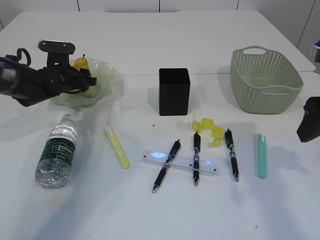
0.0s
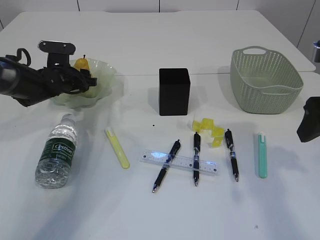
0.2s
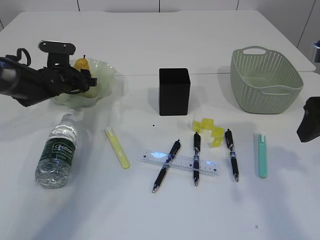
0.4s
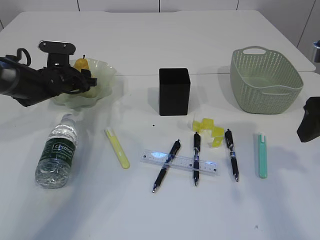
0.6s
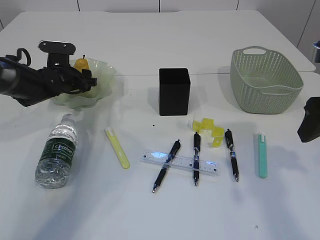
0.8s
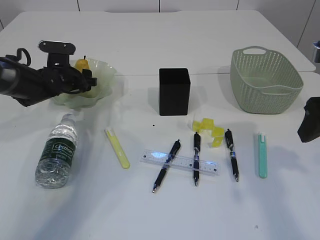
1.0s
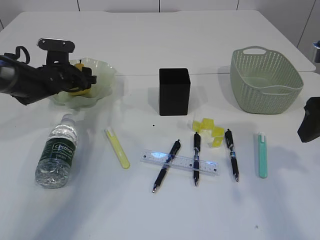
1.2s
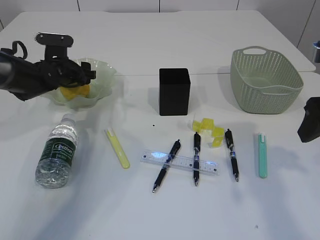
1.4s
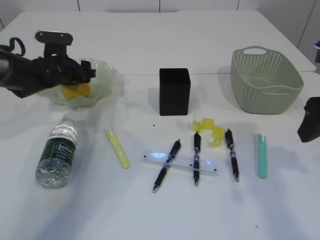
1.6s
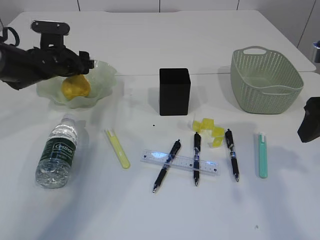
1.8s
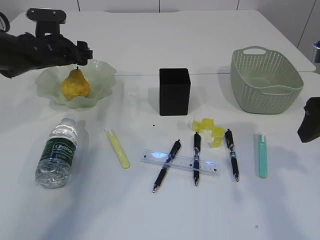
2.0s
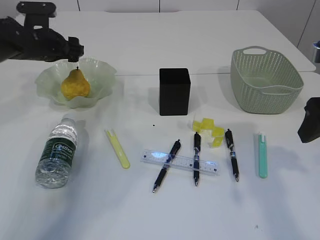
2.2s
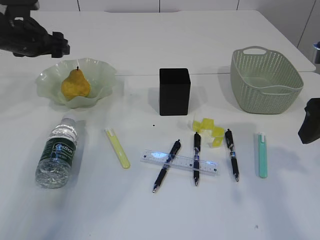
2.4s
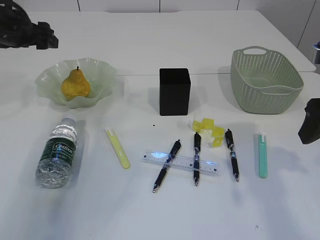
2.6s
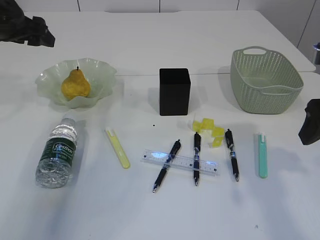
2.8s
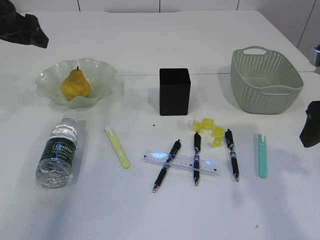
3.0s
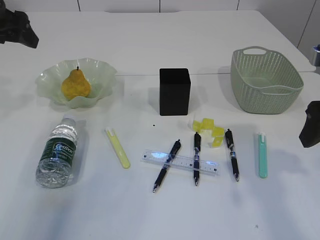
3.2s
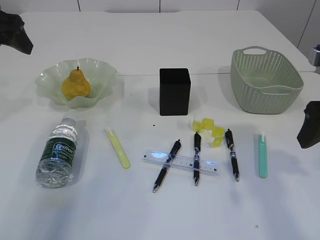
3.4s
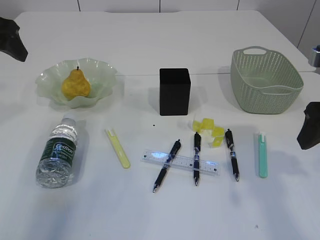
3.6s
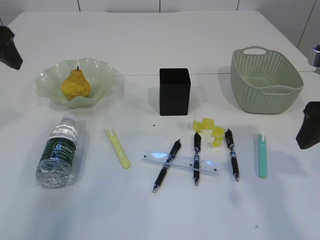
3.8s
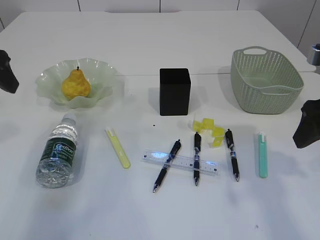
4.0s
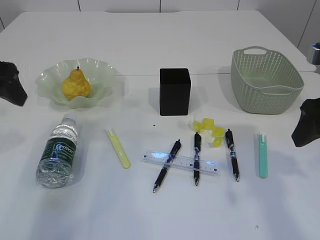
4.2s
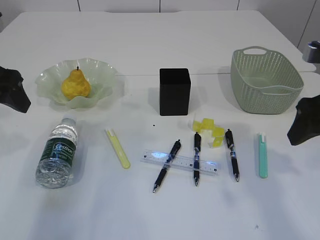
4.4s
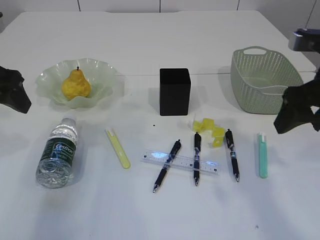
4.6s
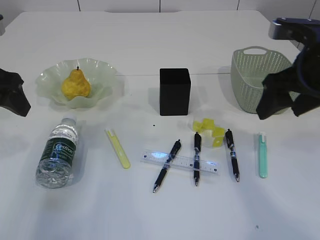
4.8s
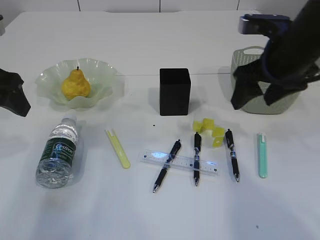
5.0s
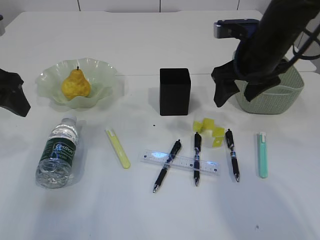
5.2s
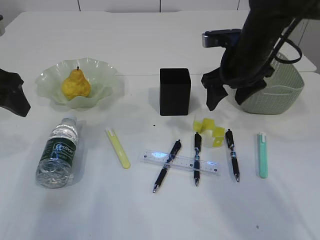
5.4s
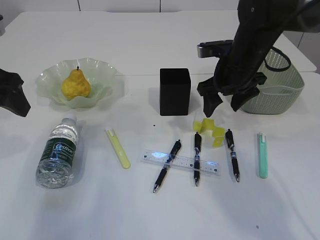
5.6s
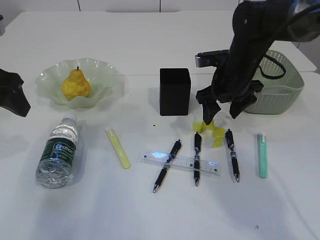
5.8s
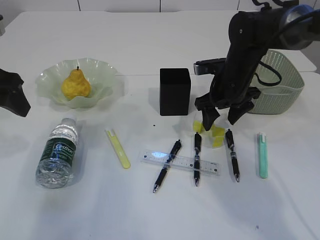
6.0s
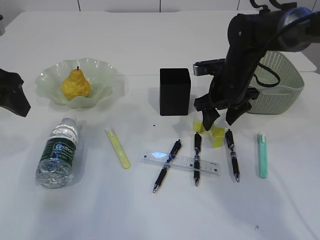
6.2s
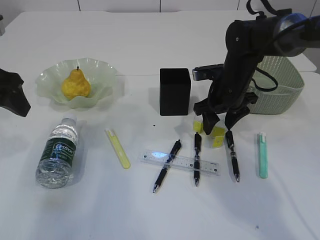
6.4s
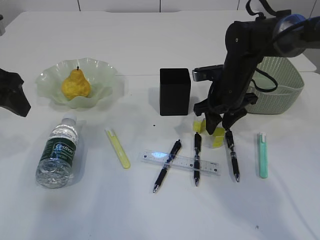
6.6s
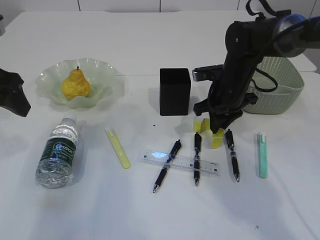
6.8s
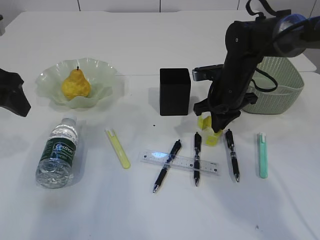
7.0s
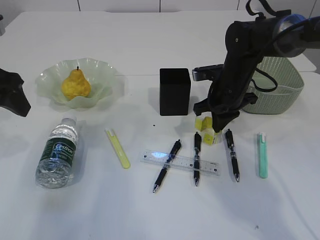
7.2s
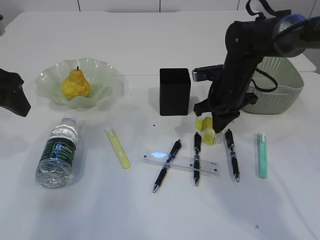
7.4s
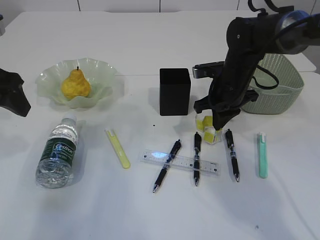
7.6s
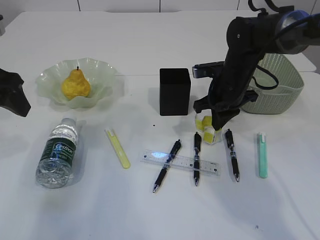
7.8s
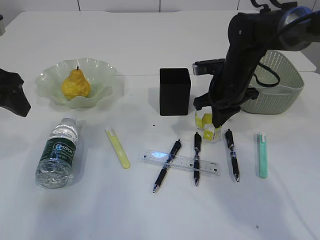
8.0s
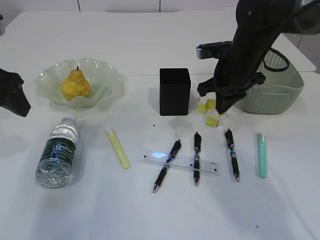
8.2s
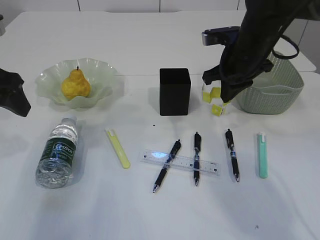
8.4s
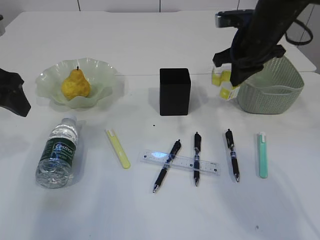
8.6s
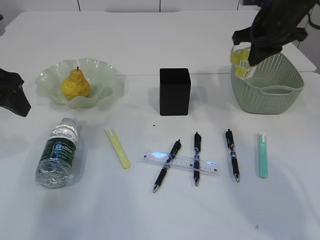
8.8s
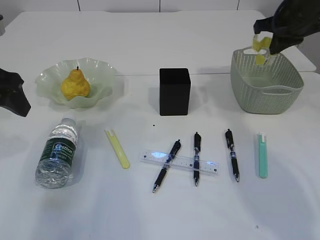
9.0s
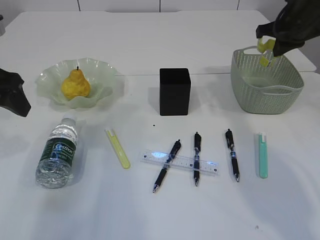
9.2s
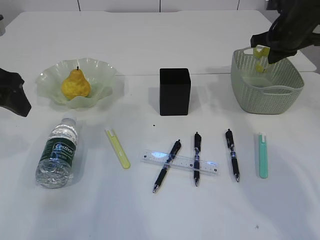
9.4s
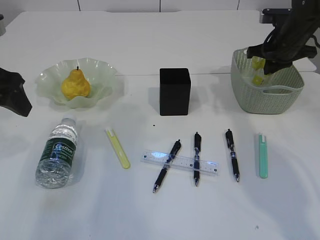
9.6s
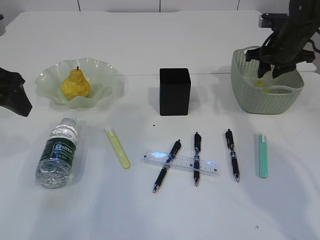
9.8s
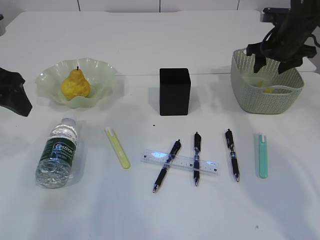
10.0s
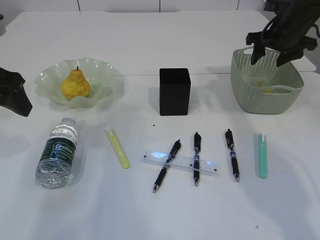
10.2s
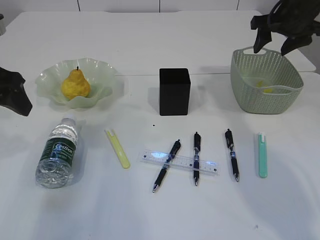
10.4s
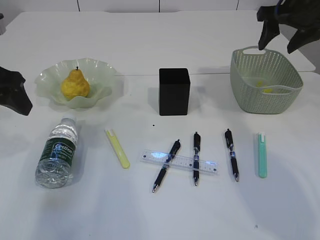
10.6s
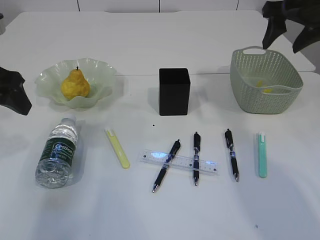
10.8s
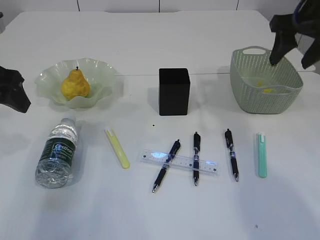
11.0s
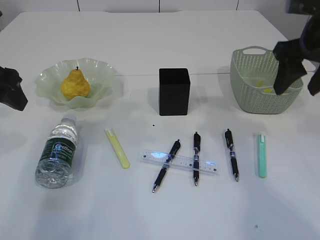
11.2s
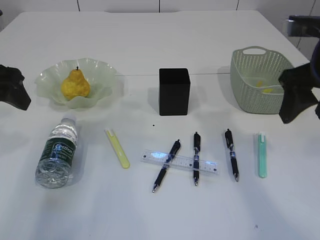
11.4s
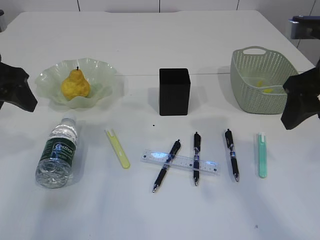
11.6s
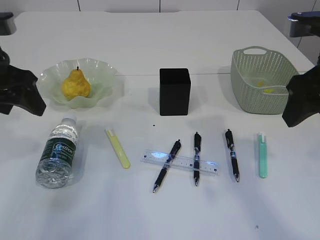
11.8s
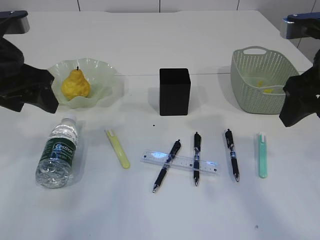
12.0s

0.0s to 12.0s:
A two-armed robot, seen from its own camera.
Step, 2.0s to 8.2s: Pick up the waste paper.
Step, 8.4s to 10.2s: Place the waste paper in the basket.
0.0s to 1.6s: The grippers make only small movements.
1.6s to 3.0s: The left gripper moves upward and backward, approximately 20 cm.
3.0s to 4.4s: The left gripper heads backward, covering roughly 10 cm.
4.4s to 6.0s: The right gripper travels forward, downward and to the left by some 20 cm.
6.0s to 7.6s: The right gripper closes.
7.6s to 9.0s: The right gripper moves upward and to the right, approximately 20 cm.
9.0s to 10.4s: The right gripper goes downward and returns, some 10 cm each way, and opens up.
10.4s to 12.0s: The right gripper goes about 20 cm backward.

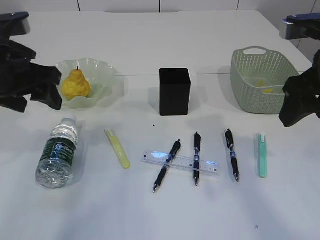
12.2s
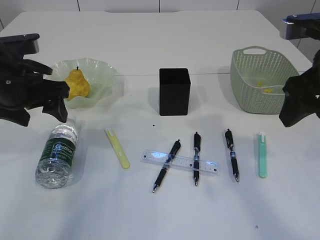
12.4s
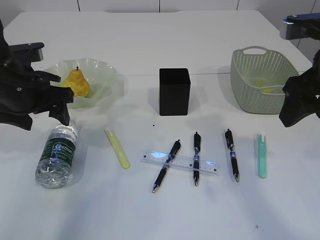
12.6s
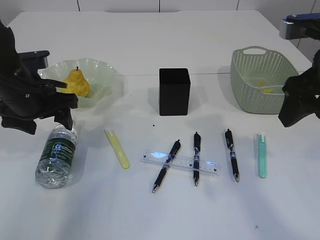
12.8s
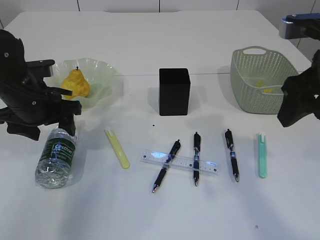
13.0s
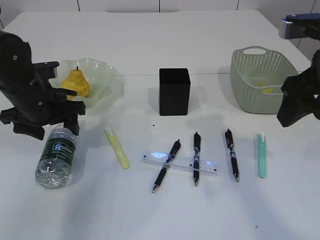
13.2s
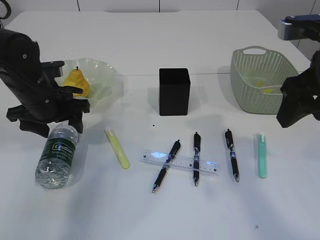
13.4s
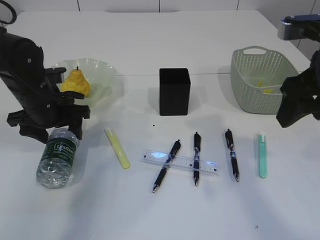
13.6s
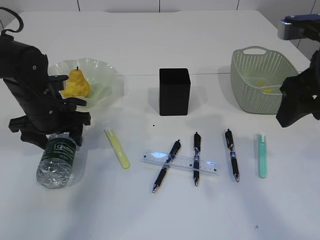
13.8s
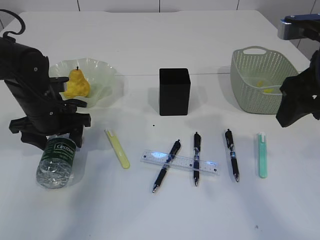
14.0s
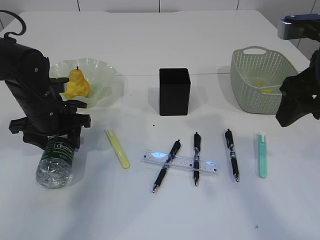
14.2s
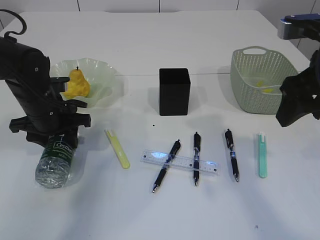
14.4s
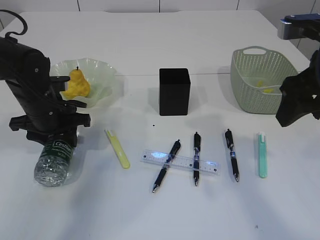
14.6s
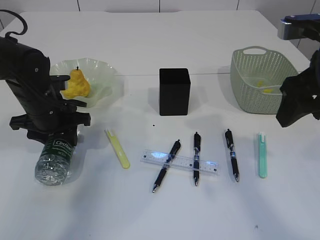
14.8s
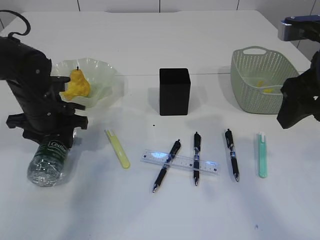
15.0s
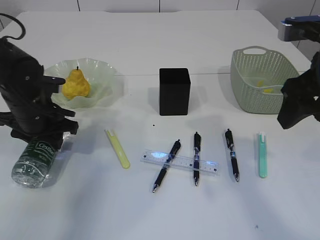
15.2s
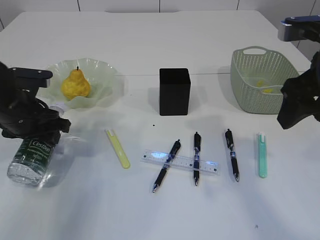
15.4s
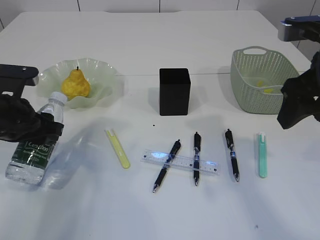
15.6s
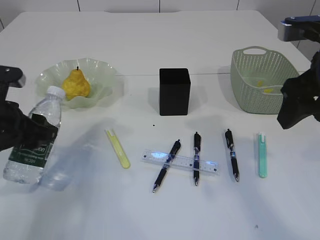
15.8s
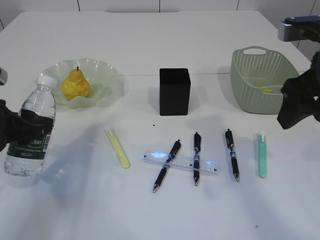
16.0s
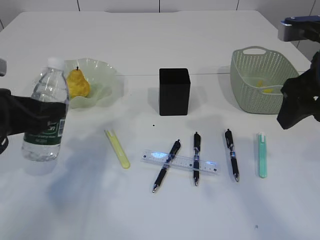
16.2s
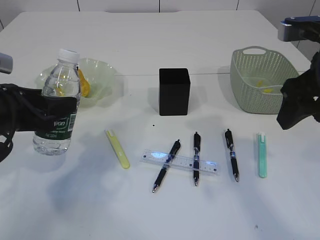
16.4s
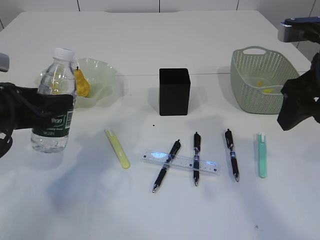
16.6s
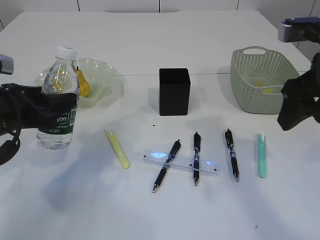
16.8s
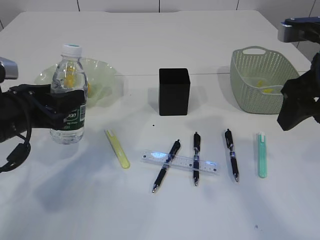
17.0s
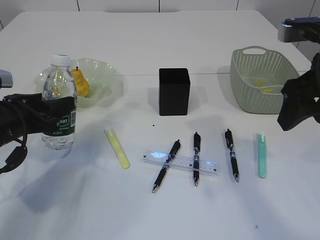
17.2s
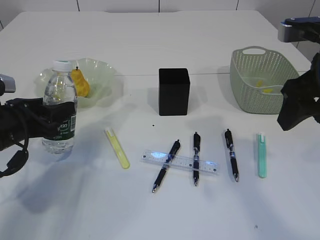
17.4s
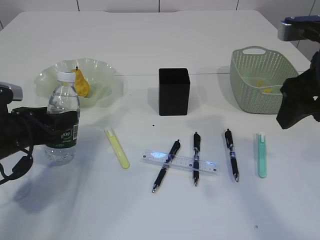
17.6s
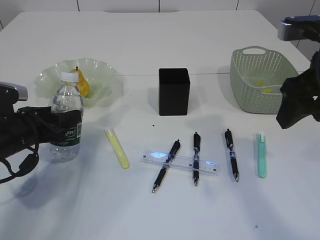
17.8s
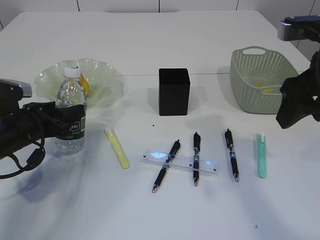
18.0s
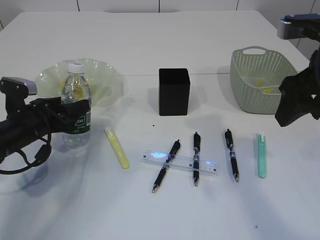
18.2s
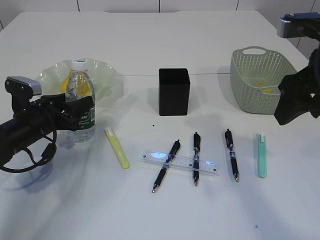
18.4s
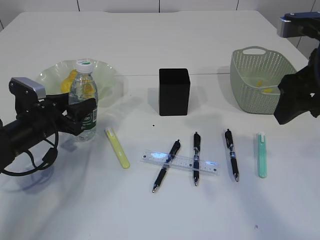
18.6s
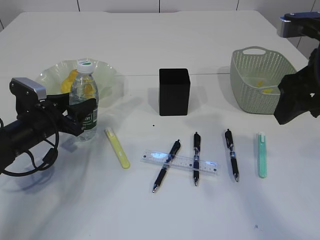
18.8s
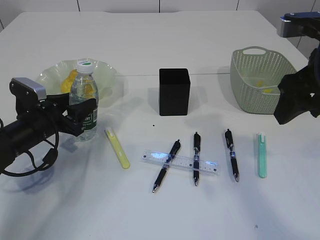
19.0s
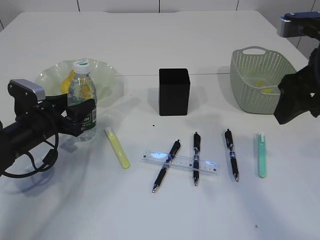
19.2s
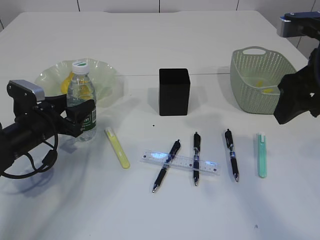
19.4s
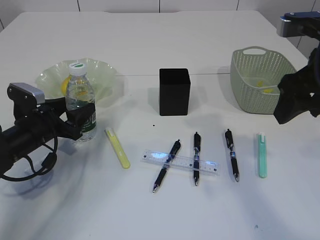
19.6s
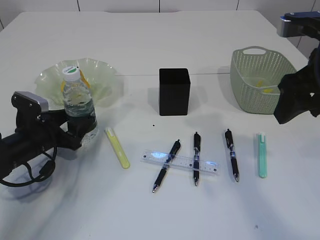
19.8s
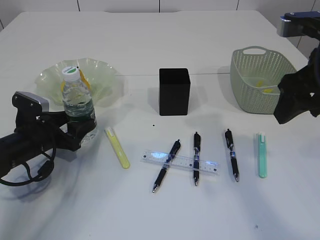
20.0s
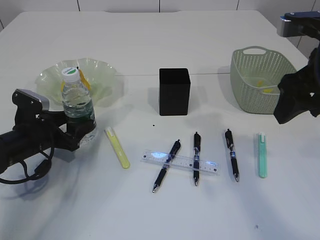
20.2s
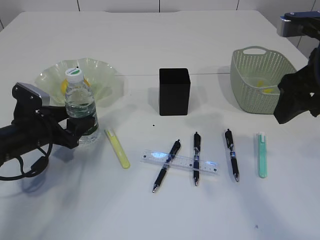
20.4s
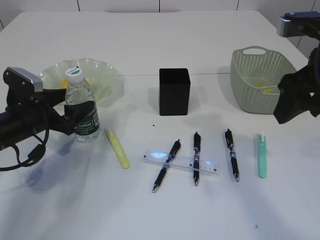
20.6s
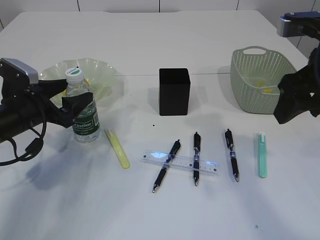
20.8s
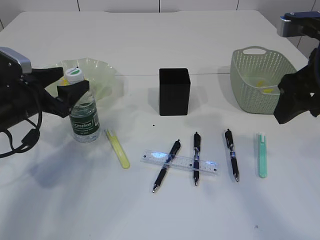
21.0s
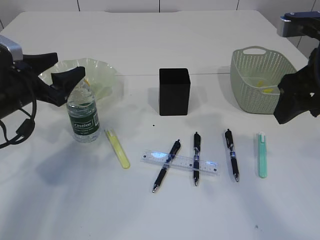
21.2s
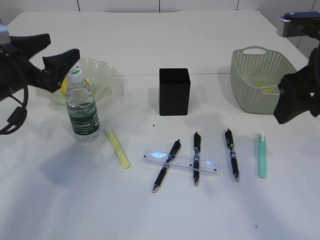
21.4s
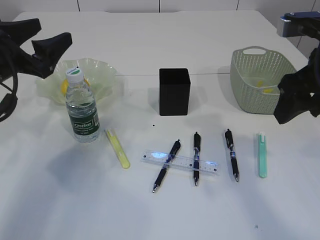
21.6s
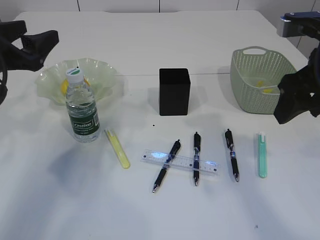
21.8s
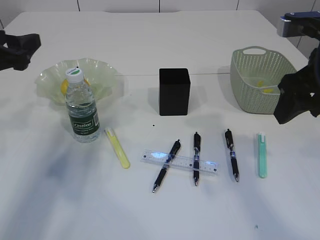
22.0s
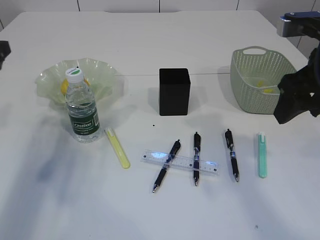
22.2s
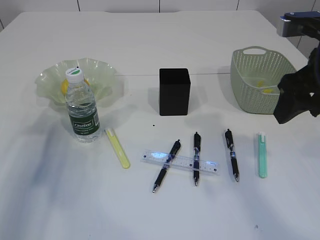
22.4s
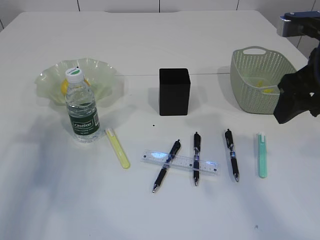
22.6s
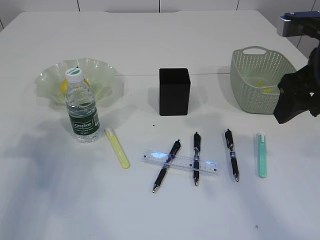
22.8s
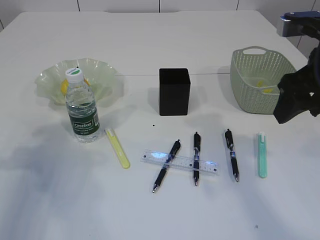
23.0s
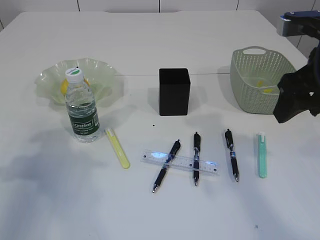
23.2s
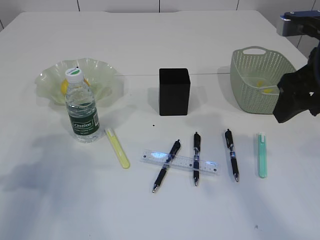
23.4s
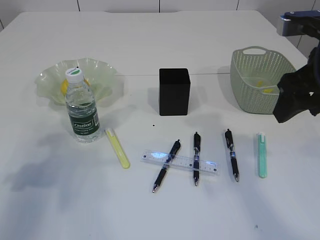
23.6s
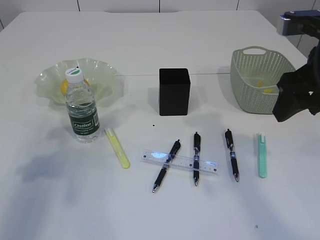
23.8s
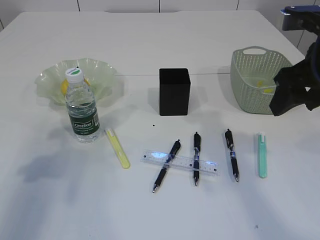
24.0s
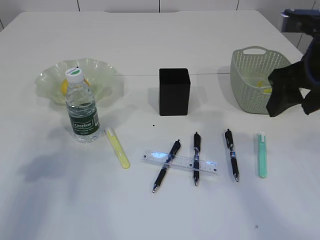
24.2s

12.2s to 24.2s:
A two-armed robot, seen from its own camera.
Step, 12.2s to 15.4s: Pick up the bottle with the left arm.
Step, 15.6s to 21.2s: Place the bottle.
12.2s to 13.8s: The left gripper heads downward and forward, covering some 15 cm.
13.8s to 15.2s: The grippers make only small movements.
15.2s to 16.6s: The left gripper is displaced backward and upward by approximately 10 cm.
16.6s to 18.2s: The left gripper goes approximately 15 cm downward and forward.
18.2s to 19.8s: The grippers stay close to where they were, moving slightly.
19.8s to 21.2s: The left gripper travels upward by about 10 cm.
21.2s to 22.6s: The left gripper travels to the left and upward by approximately 10 cm.
